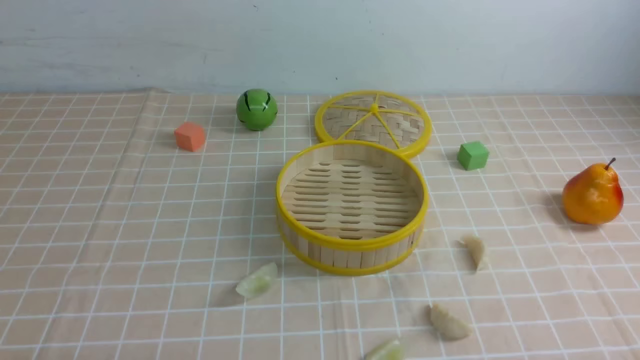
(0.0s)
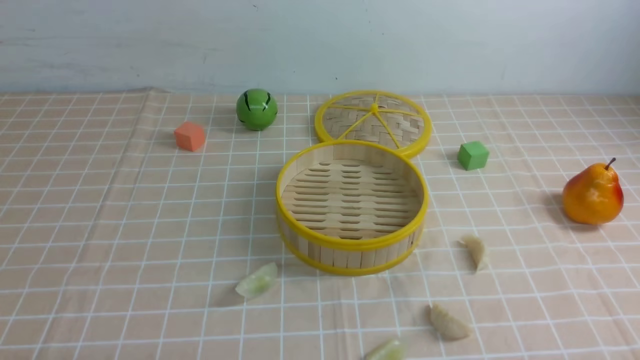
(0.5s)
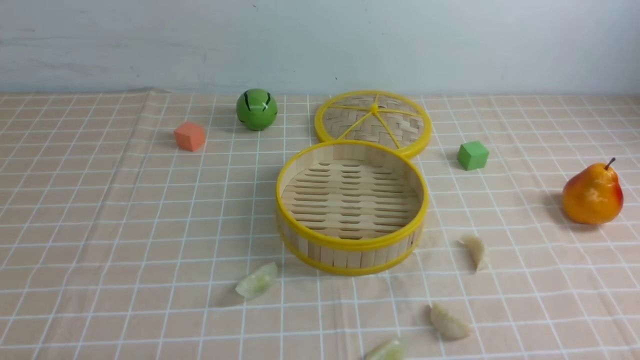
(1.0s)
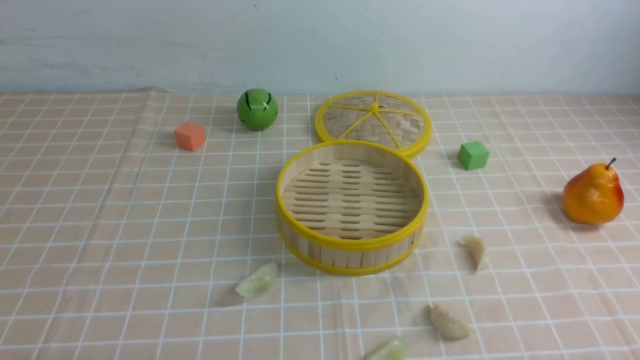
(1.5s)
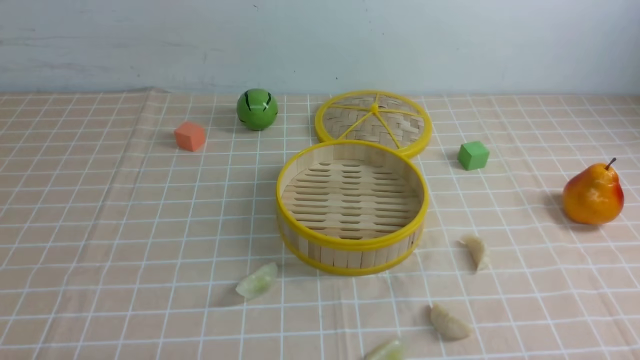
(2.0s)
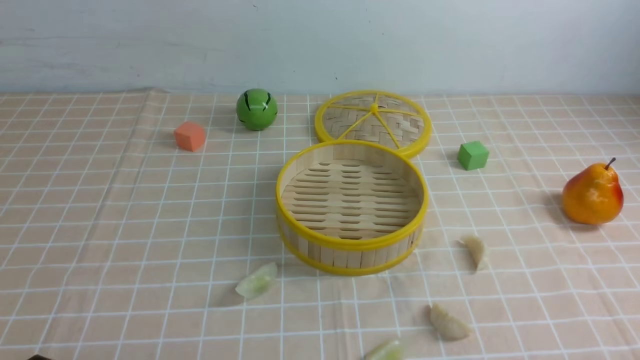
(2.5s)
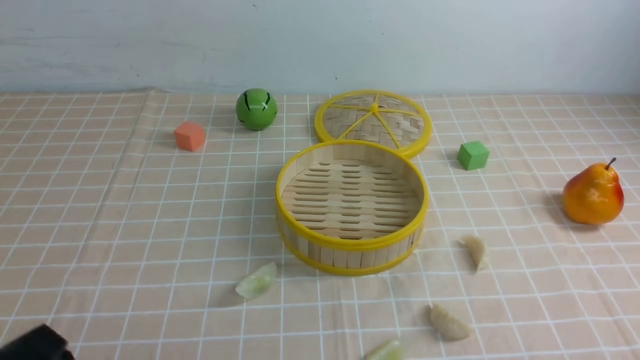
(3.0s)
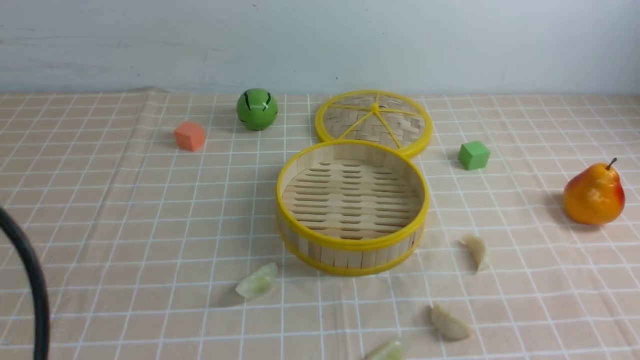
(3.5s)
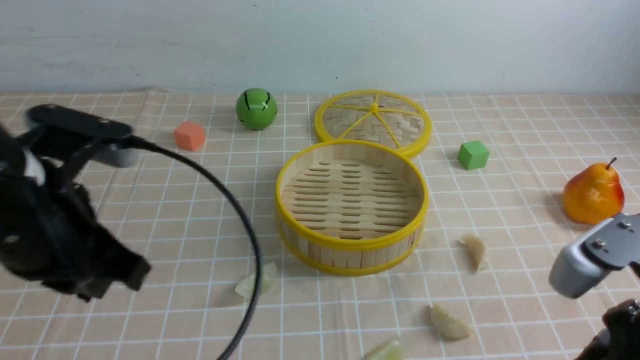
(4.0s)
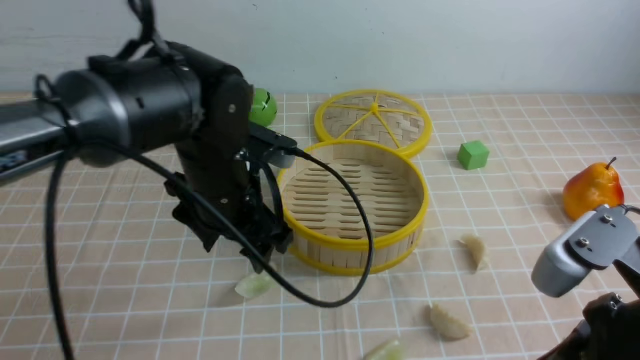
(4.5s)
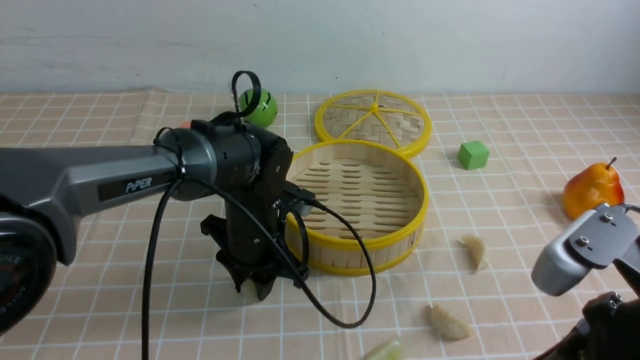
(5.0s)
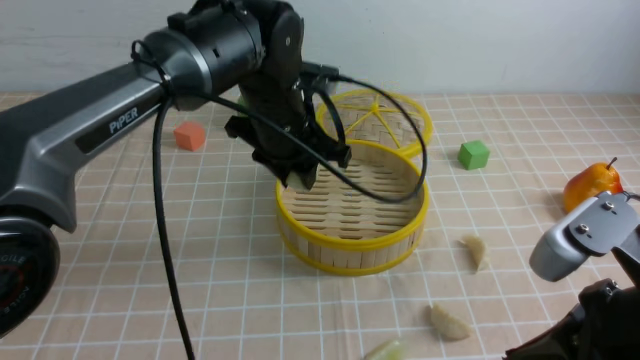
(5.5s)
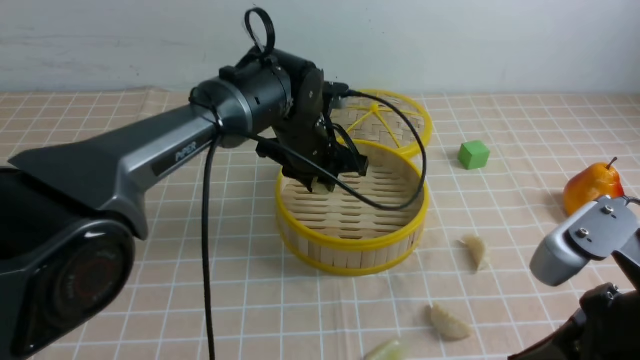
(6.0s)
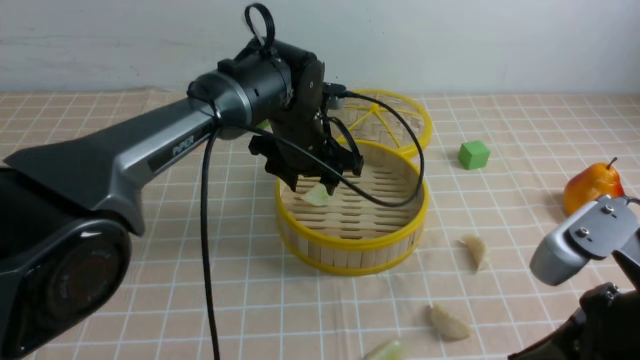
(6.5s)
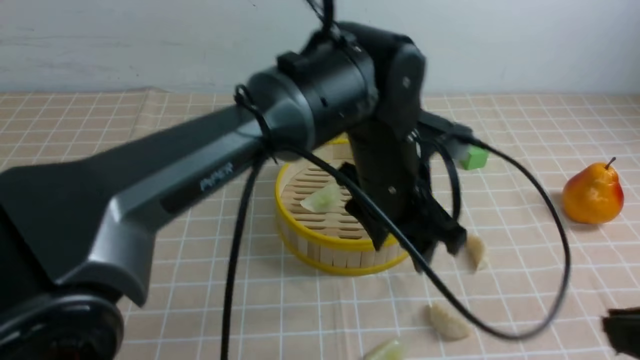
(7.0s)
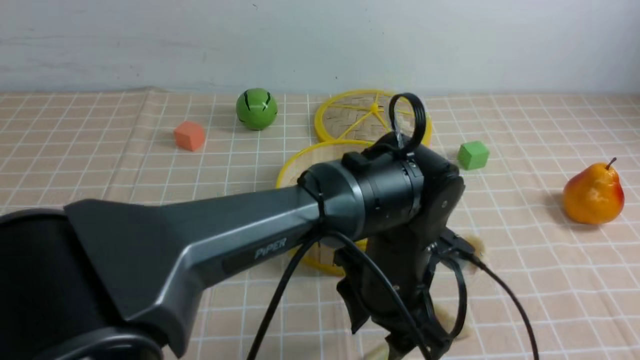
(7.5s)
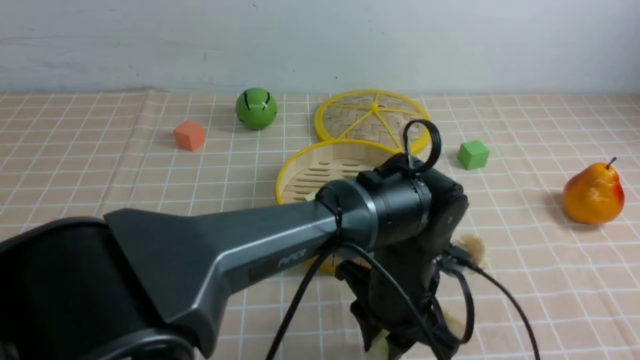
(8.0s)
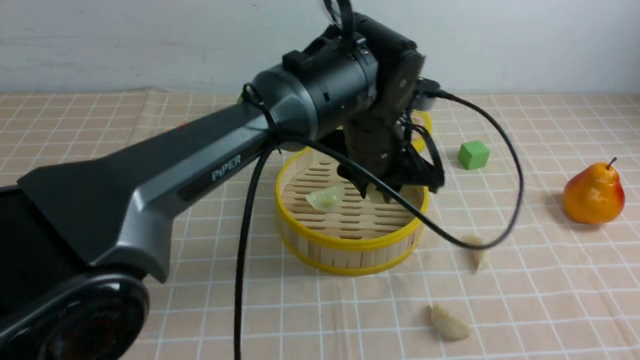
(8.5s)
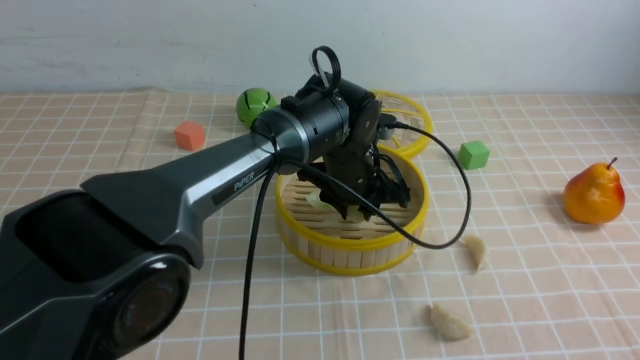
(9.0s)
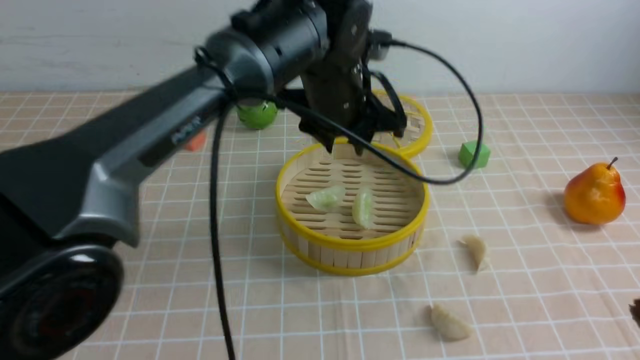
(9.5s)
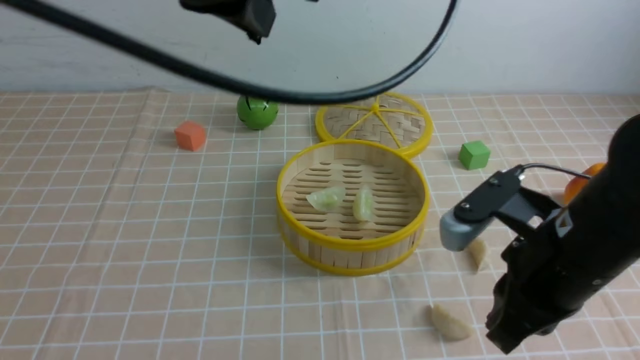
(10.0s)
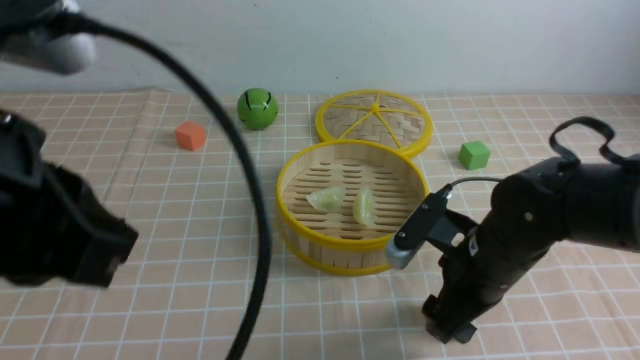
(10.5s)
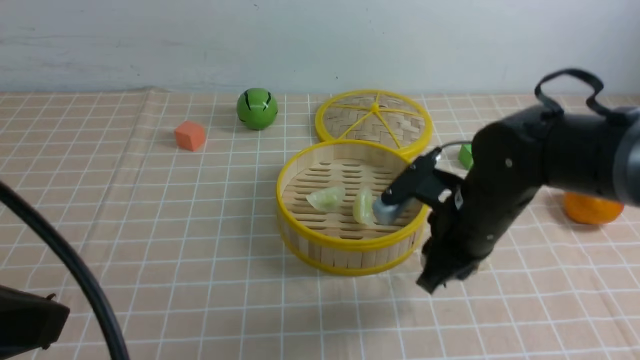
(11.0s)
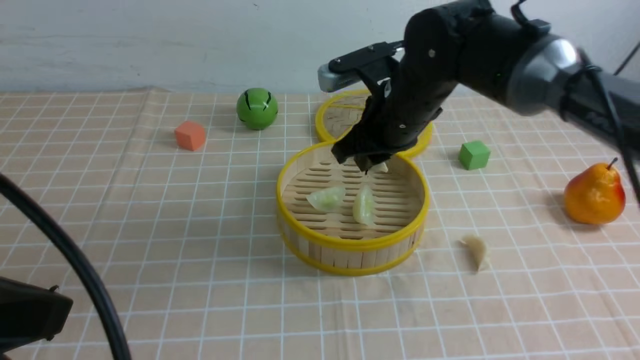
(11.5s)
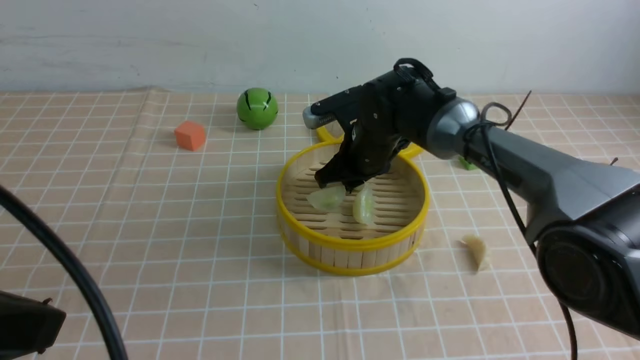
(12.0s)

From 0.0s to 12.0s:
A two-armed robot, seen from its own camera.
Task of the whole recording: put the dumplings into the steamer on the table with the brown tablecloth.
Step, from 0.0s to 5.0s: use the left arm to grab a dumpling.
Step, from 5.5s to 6.0s: use the left arm to put the dumpling into the steamer.
Step, from 7.0s to 7.5s: use the left arm to grab a dumpling.
Step, from 8.0s to 9.0s: use the left arm to put the dumpling into the steamer.
Step, from 9.5s to 10.5s: use the right arm to grab a dumpling.
From 2.0s to 4.0s: The left gripper shifts about 20 cm upward and forward, and closes up. Meanwhile the right gripper moves upward, to the left and forward, roughly 15 cm, and closes its fingers.
From 4.0s to 6.0s: The left gripper is displaced forward and to the right by roughly 30 cm, and opens its fingers.
From 6.0s to 8.0s: The right gripper moves backward and to the right, roughly 15 cm; the left gripper is displaced backward, to the right and downward by approximately 20 cm.
From 8.0s to 10.0s: The left gripper swings up and down, some 30 cm each way, with 2 reversals, and closes its fingers, while the right gripper heads forward and to the left, covering approximately 20 cm.
From 10.0s to 12.0s: The right gripper heads forward and to the left, covering approximately 30 cm, and opens up; the left gripper shifts some 25 cm backward, to the left and downward.

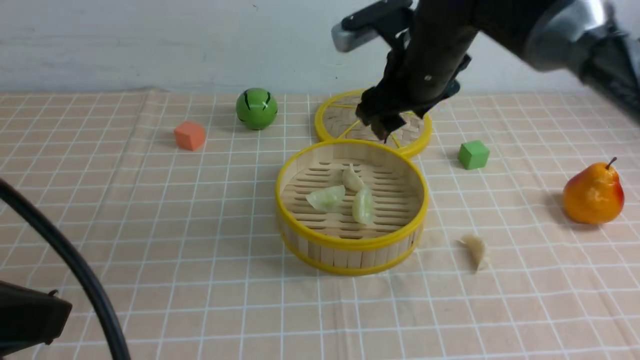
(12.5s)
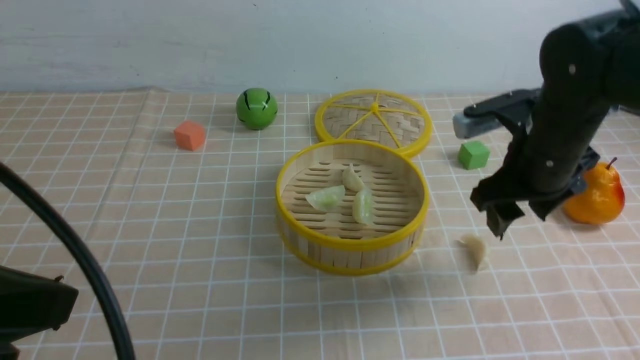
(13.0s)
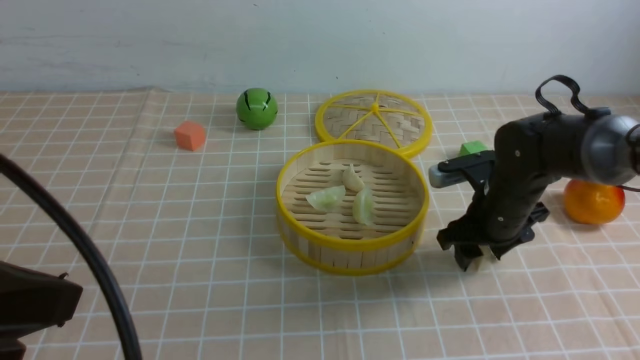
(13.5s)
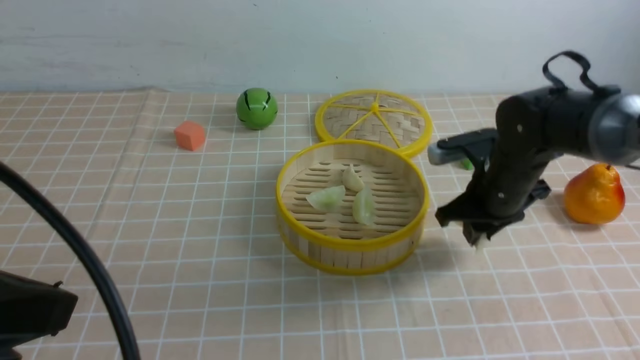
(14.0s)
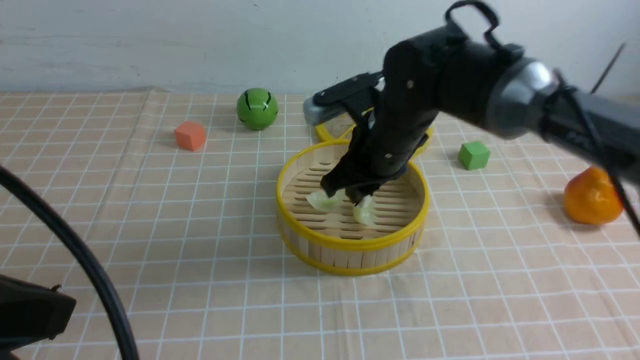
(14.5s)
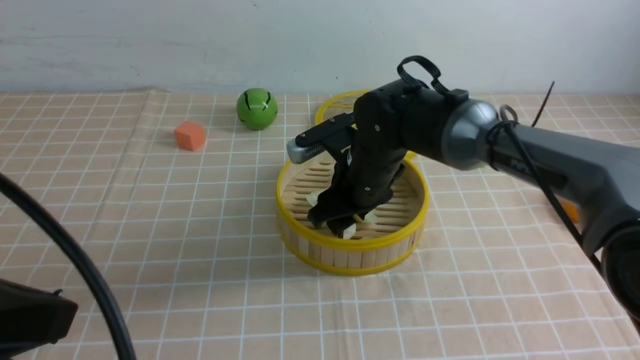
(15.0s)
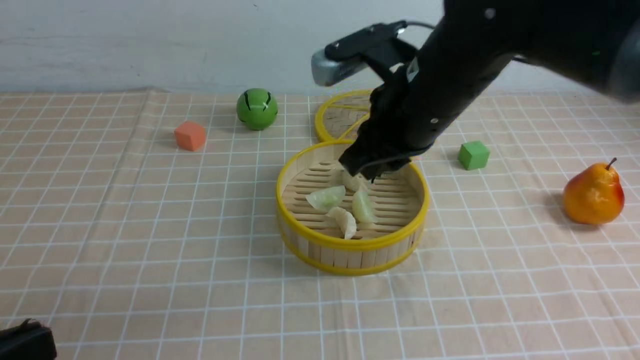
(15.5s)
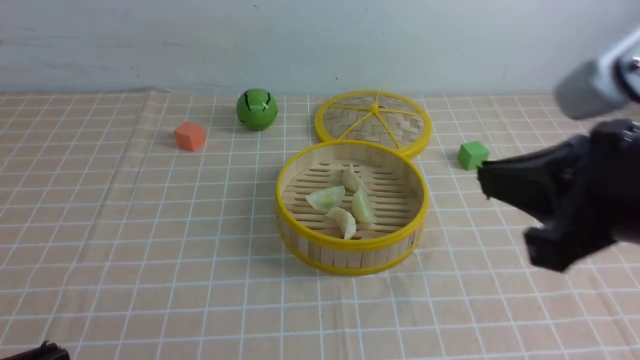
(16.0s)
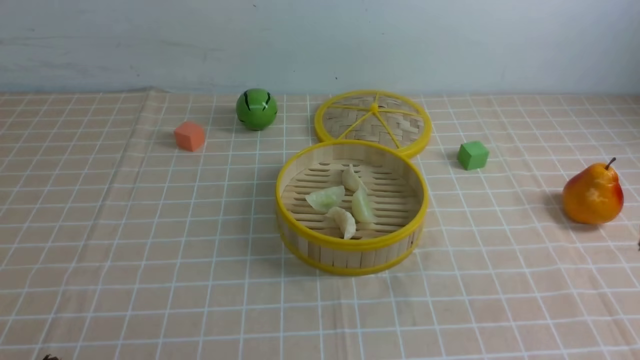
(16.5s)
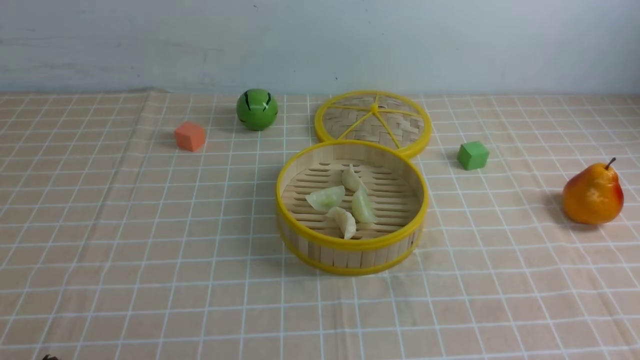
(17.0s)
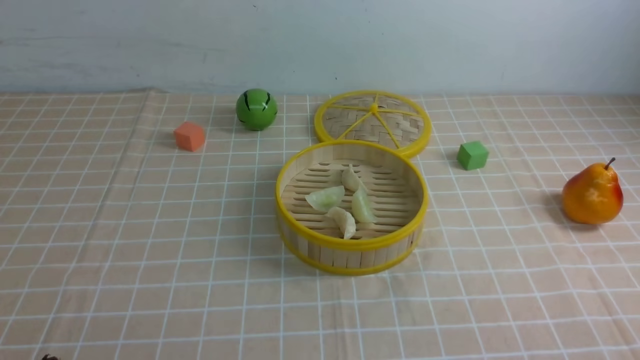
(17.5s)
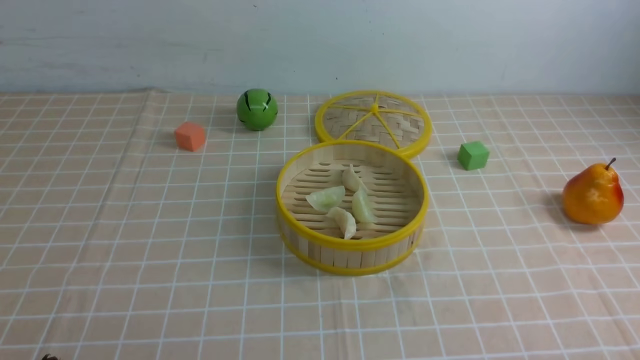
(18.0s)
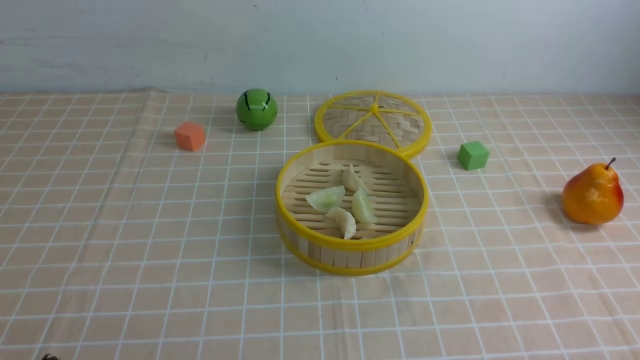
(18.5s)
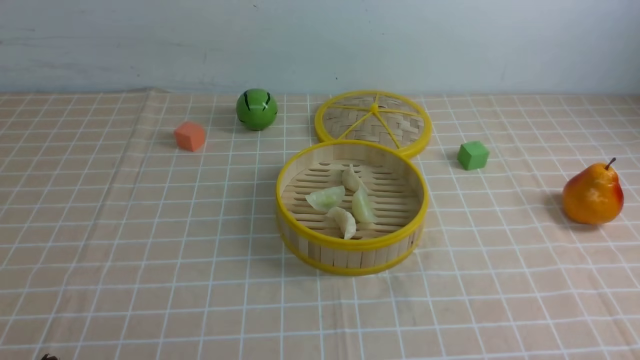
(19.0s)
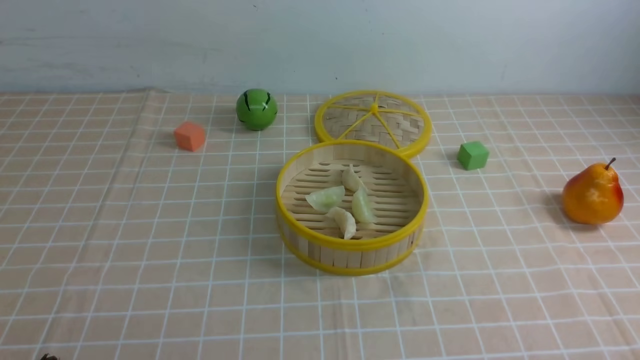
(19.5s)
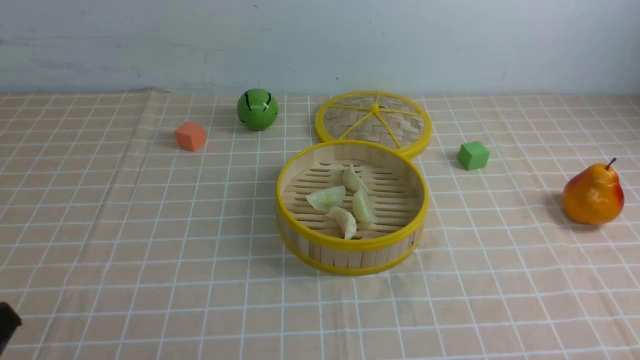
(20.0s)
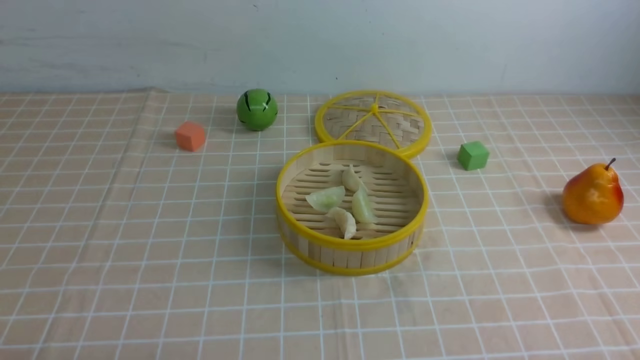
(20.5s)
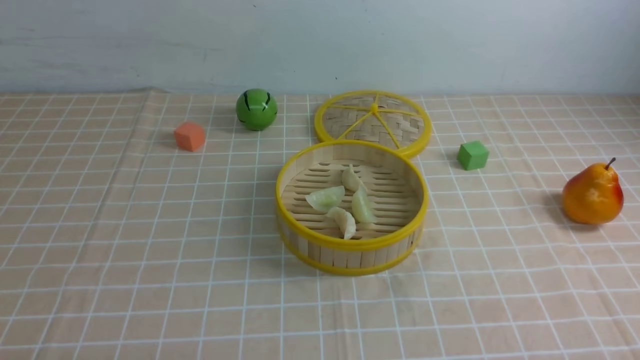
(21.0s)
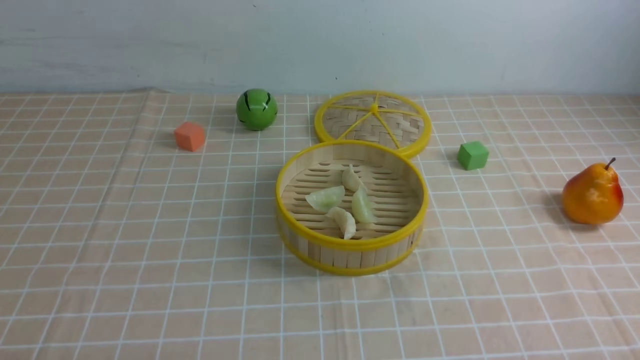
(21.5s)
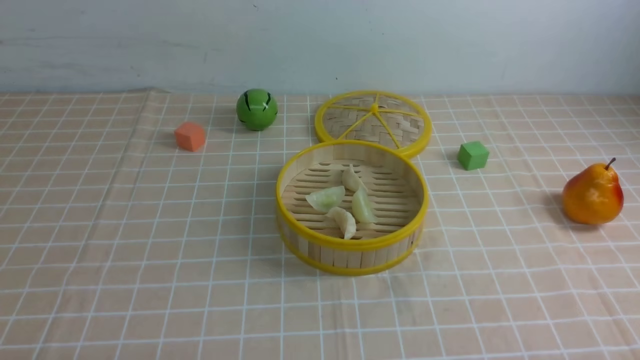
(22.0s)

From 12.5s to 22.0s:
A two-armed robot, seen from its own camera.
Task of the whole recording: put the dumplings into the steamer on the table with the brown tablecloth.
Step, from 12.5s to 13.5s: use the right arm to grab a dumpling.
Step, from 14.0s to 15.0s: use the right arm to put the dumpling into the steamer.
From 12.5s to 14.5s: The right gripper travels downward and back again, about 10 cm each way, and closes.
From 14.5s to 16.5s: The left gripper moves downward, some 10 cm, while the right gripper shifts roughly 35 cm backward and to the right, and closes its fingers.
